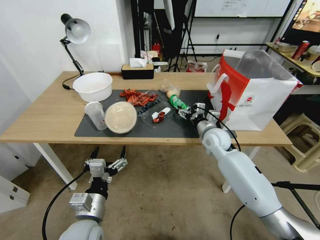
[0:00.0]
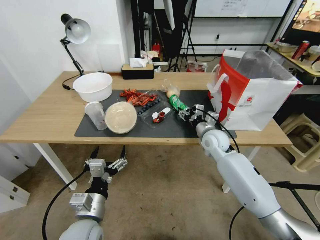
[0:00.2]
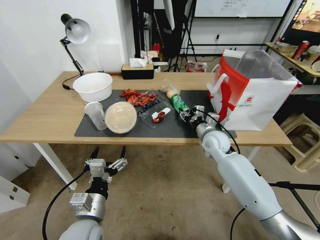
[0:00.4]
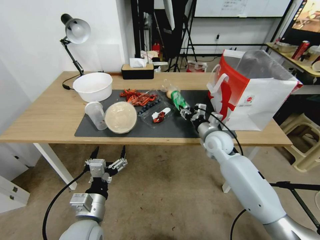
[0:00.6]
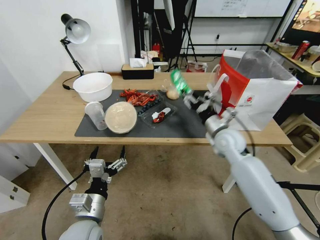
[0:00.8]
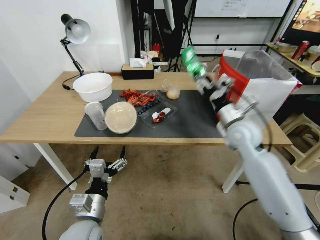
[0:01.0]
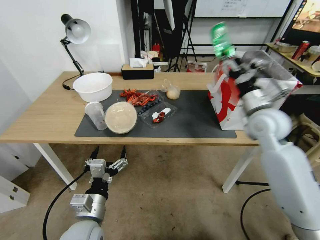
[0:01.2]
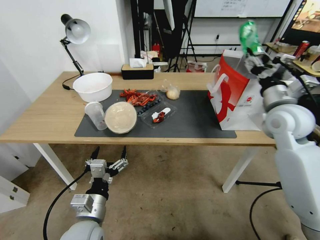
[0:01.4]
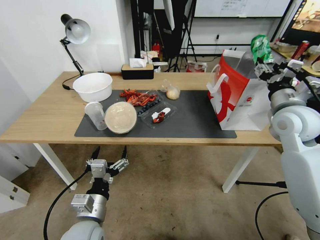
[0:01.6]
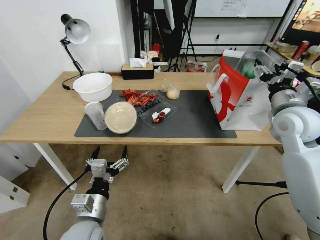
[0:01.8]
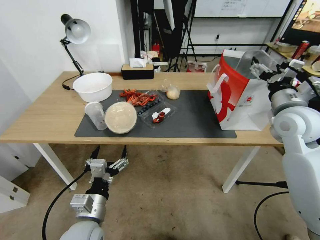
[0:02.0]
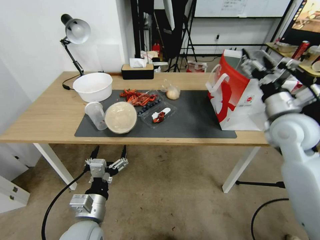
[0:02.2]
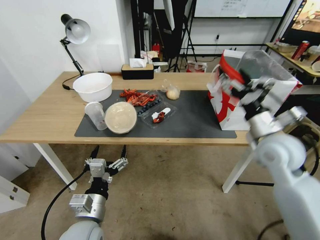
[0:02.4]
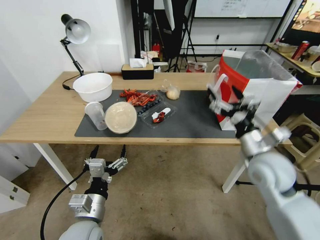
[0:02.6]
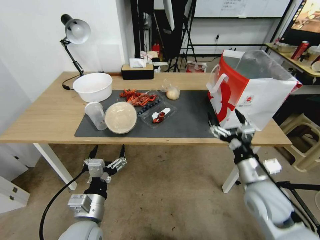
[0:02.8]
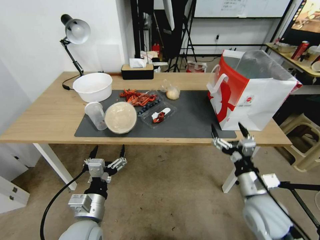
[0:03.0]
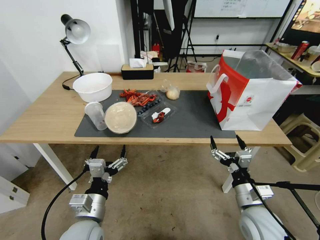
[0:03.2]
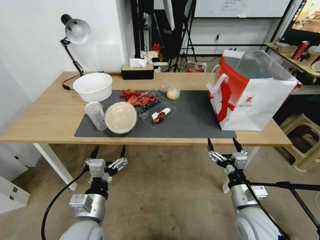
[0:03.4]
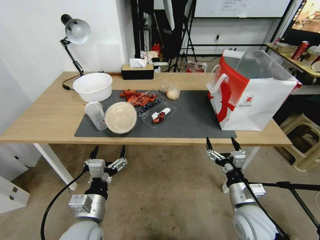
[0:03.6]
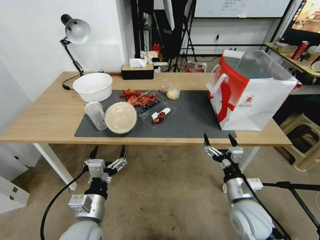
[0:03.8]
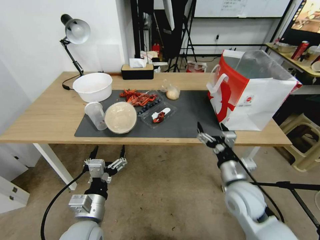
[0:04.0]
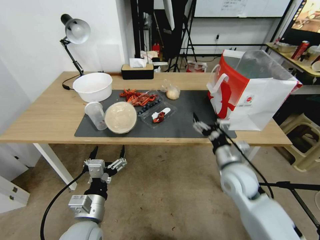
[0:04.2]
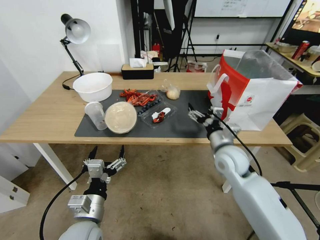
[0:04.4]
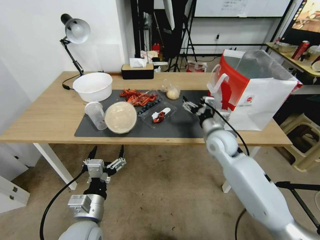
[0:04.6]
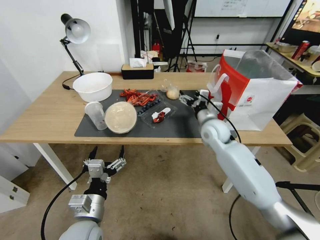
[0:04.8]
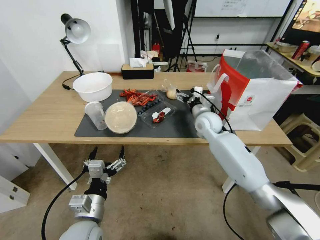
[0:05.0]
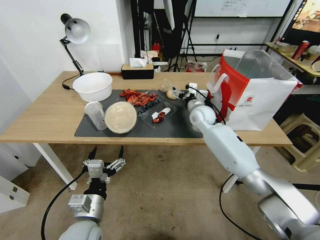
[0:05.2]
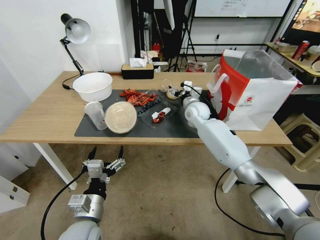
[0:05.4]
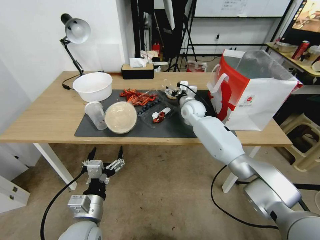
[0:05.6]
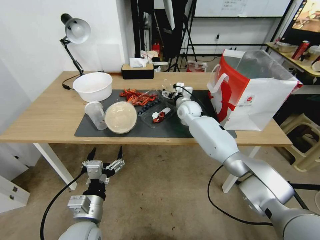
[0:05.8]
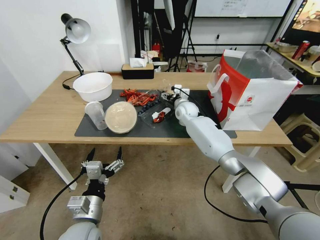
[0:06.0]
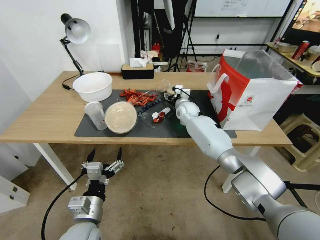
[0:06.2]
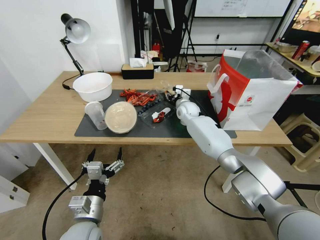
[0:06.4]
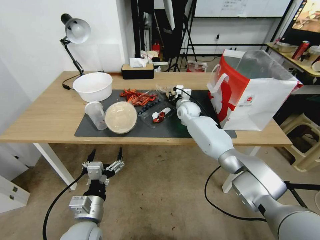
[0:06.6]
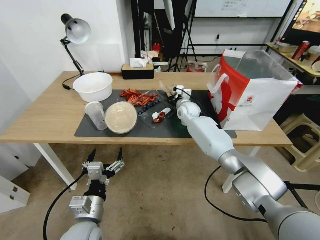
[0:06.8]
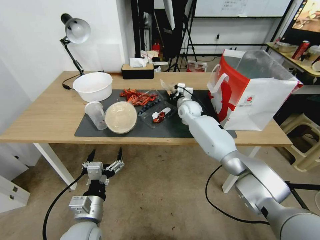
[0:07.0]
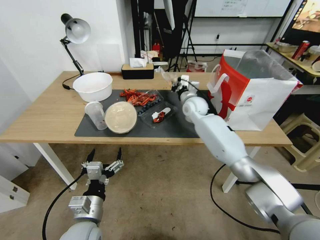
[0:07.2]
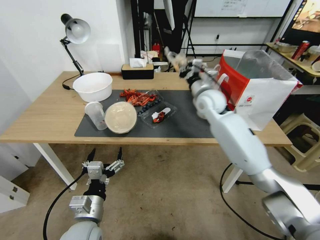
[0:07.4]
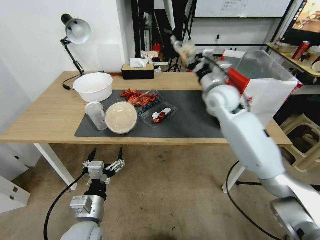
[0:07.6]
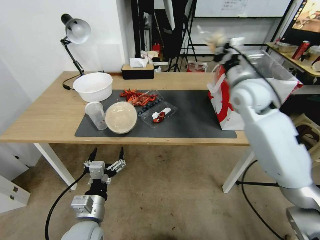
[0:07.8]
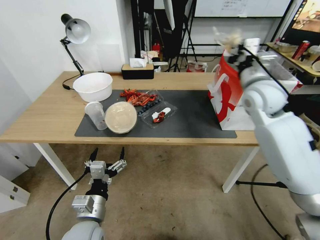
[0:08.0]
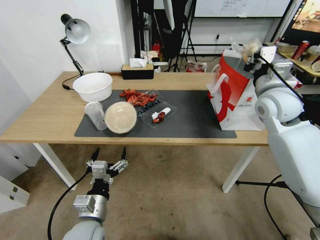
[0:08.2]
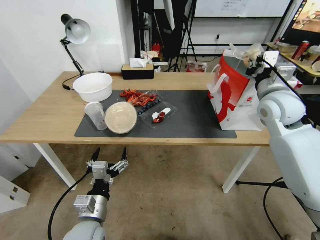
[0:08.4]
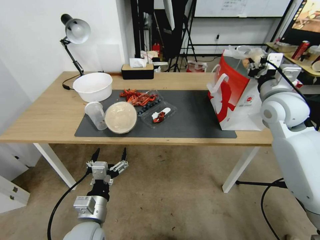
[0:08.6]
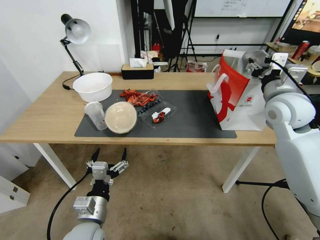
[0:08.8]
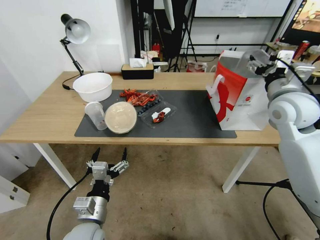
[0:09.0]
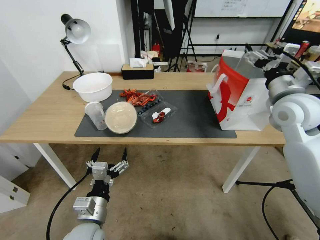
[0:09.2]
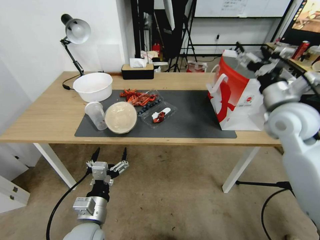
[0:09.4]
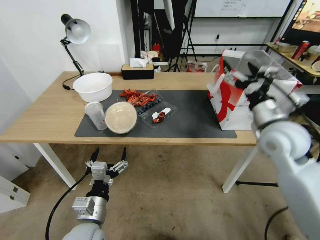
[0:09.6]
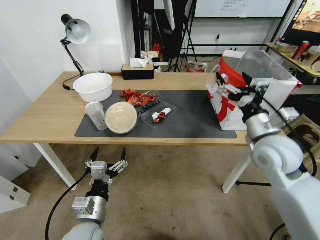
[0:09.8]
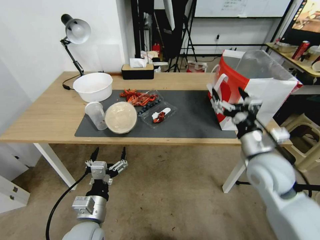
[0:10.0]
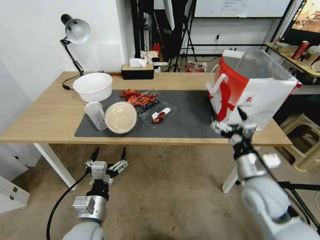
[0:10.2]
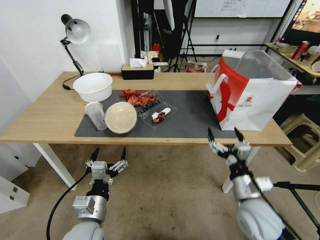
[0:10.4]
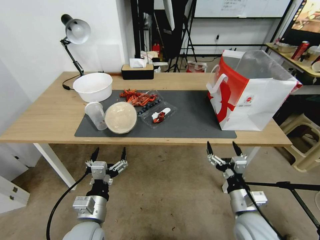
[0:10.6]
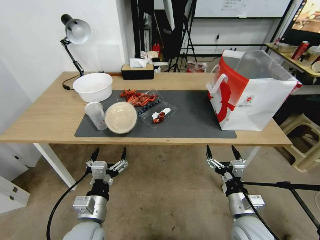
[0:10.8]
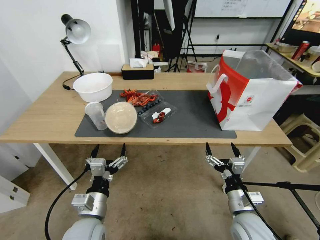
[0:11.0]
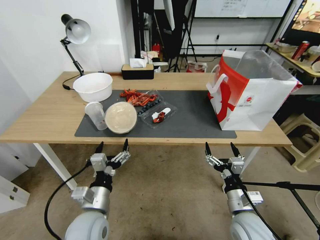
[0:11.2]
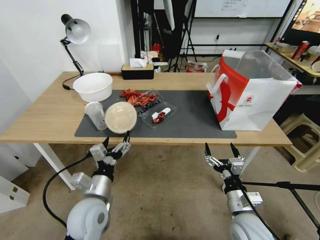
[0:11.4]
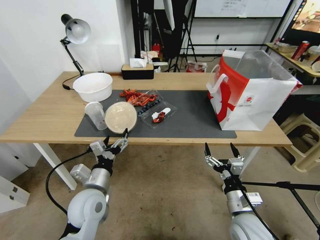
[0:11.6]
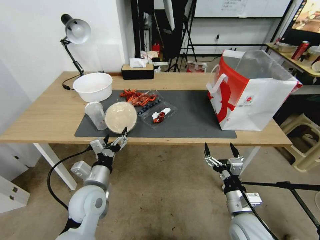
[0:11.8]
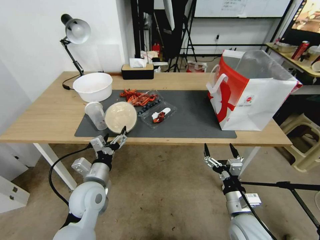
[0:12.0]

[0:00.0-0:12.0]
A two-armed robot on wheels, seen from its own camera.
0:00.0 to 0:01.6: The right gripper is displaced upward, to the right and backward by roughly 25 cm.
0:01.6 to 0:03.0: The right gripper goes about 25 cm downward and backward, and opens up.
0:03.0 to 0:04.4: The right gripper shifts approximately 15 cm forward.
0:04.4 to 0:06.0: The right gripper heads forward and to the left, covering some 25 cm.
0:06.0 to 0:07.6: The right gripper travels upward, backward and to the right by roughly 20 cm, and closes.
0:07.6 to 0:09.0: The right gripper is displaced to the right and backward by approximately 15 cm, and opens up.
0:09.0 to 0:10.4: The right gripper shifts approximately 30 cm downward and backward.
0:10.4 to 0:12.0: The left gripper is displaced forward by some 10 cm. Meanwhile the right gripper ends up about 5 cm from where it was.

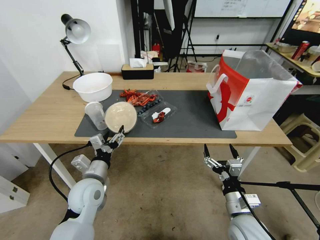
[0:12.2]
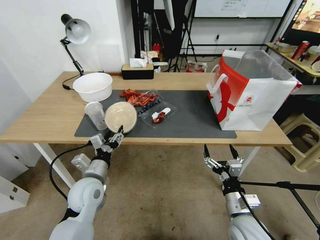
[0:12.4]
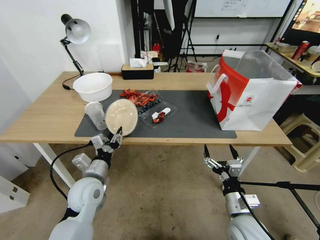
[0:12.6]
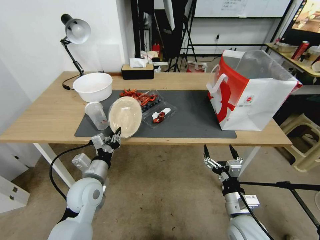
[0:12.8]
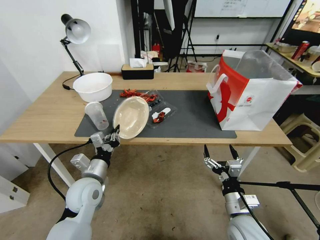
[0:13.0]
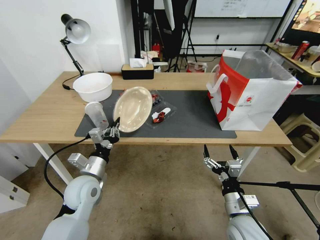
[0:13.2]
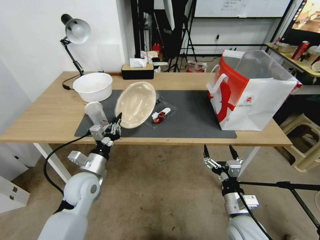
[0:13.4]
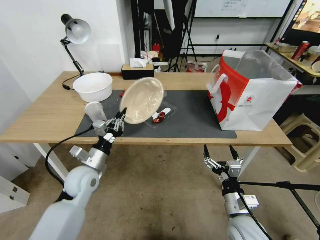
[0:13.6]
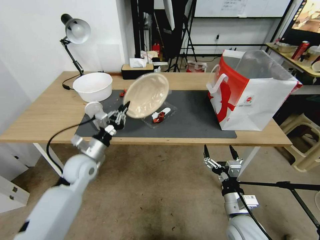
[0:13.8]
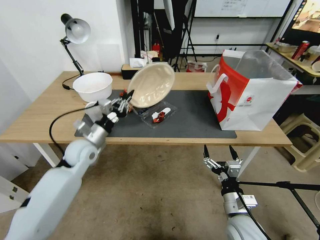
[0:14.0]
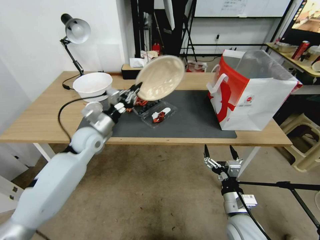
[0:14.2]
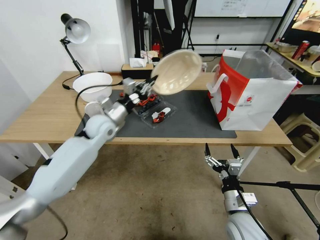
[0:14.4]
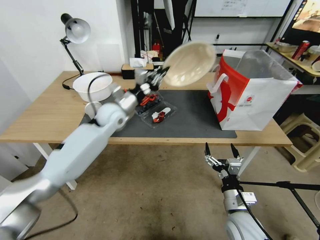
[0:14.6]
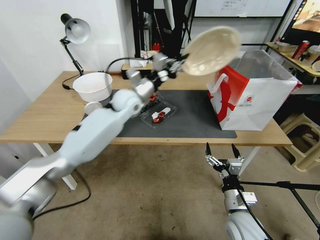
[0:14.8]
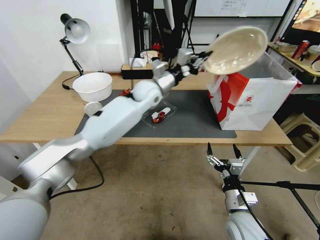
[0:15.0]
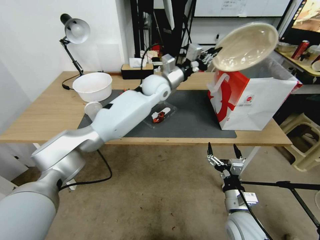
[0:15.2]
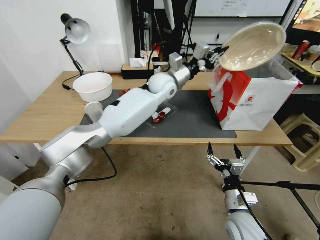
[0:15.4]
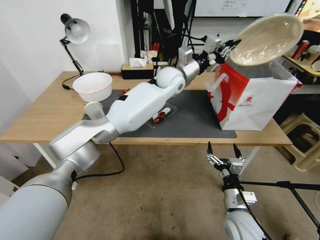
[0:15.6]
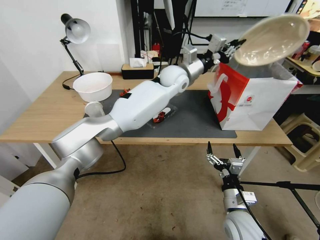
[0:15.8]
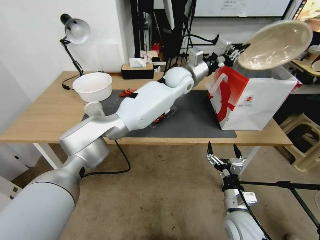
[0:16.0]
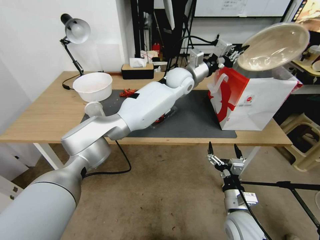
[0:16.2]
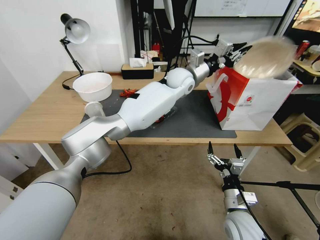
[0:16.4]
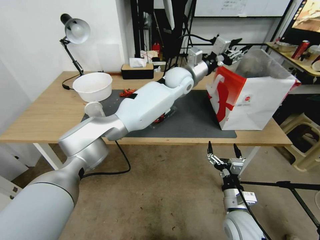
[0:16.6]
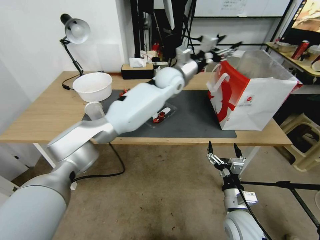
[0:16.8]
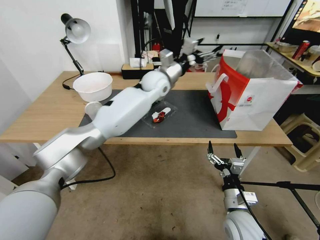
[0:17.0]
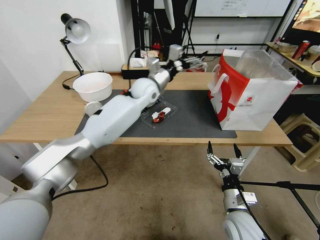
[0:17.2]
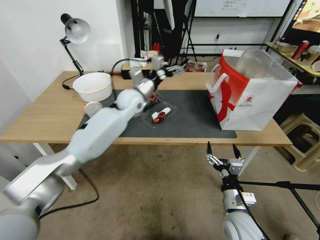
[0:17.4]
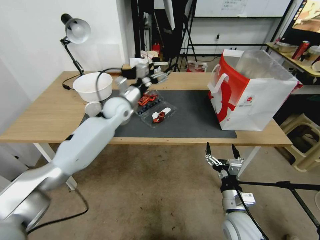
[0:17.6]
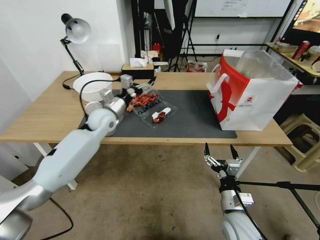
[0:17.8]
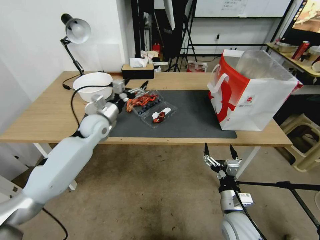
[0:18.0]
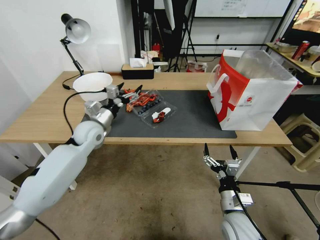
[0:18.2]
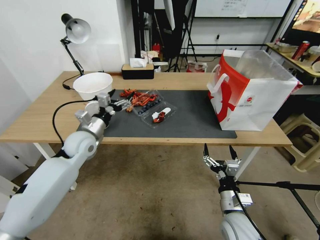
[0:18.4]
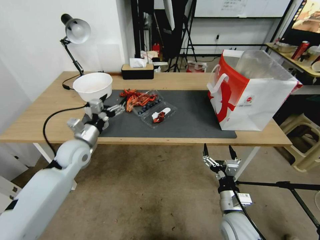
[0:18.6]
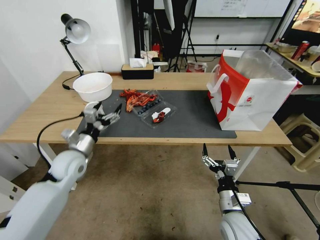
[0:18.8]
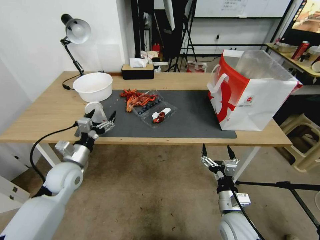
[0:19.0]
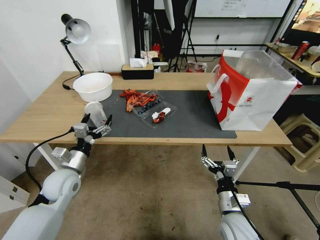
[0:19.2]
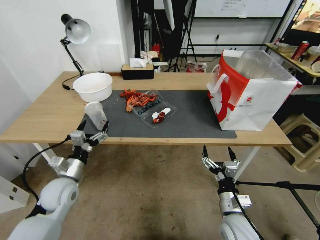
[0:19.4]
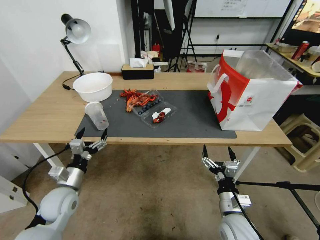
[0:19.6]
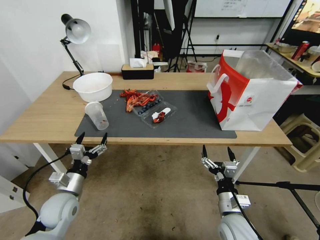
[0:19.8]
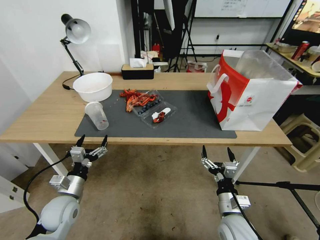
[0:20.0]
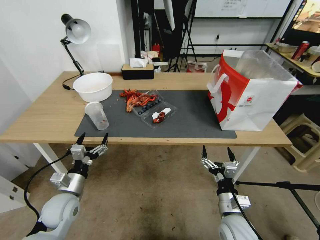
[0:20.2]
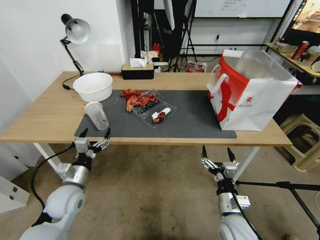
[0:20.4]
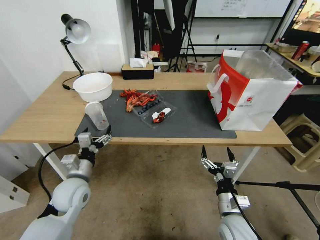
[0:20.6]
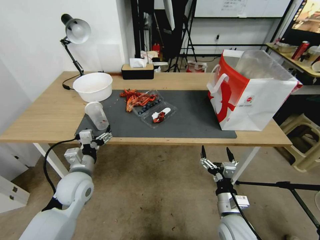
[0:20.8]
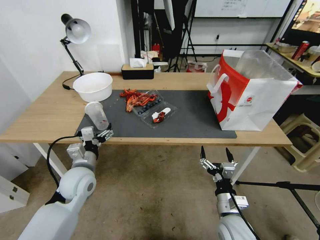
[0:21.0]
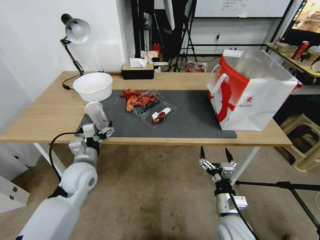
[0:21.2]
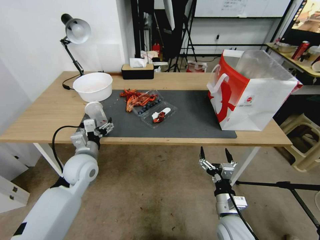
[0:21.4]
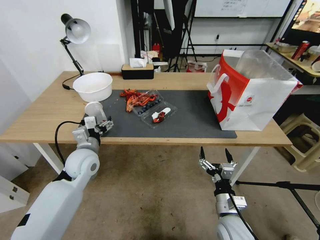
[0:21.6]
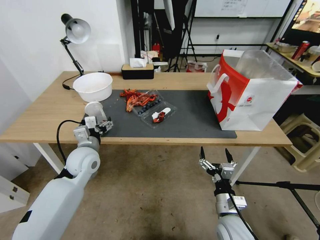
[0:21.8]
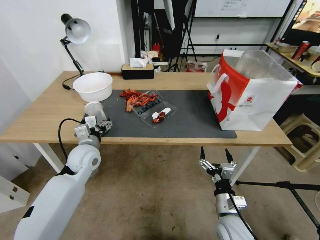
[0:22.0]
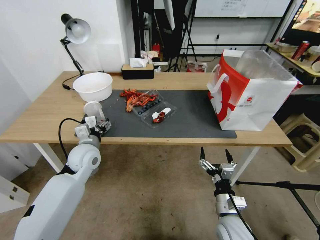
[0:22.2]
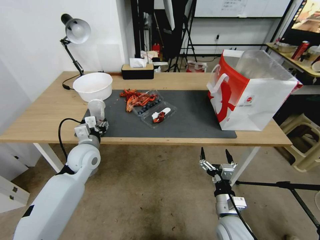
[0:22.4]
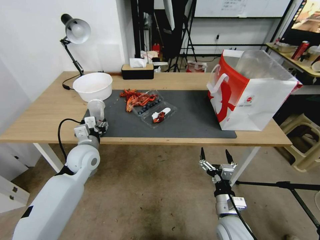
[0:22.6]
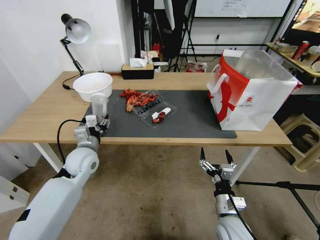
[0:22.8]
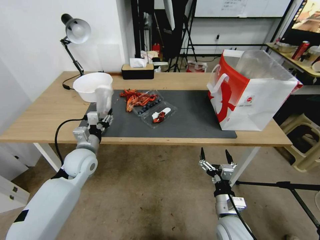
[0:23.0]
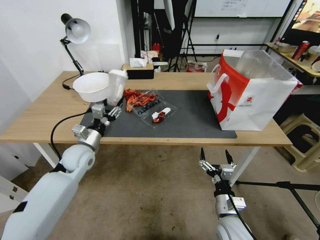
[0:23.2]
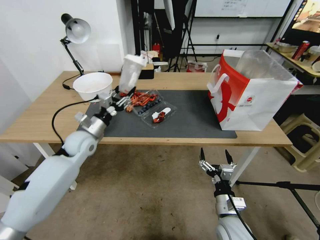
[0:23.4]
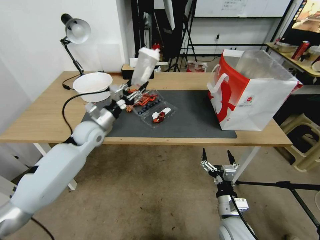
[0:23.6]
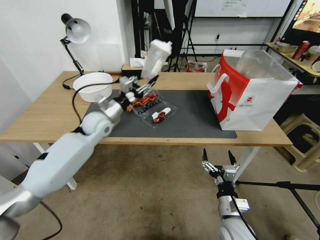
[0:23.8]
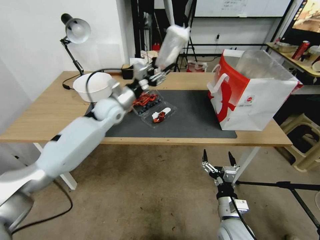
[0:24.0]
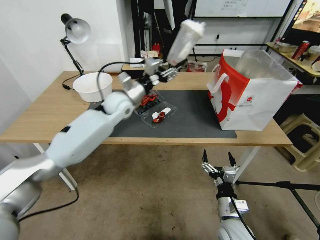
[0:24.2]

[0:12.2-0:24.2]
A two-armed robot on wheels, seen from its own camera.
0:12.2 to 0:13.8: The left gripper moves forward, roughly 10 cm, and closes.
0:13.8 to 0:15.2: The left gripper goes approximately 35 cm to the right, forward and upward.
0:15.2 to 0:16.6: The left gripper travels to the right by approximately 10 cm, and opens its fingers.
0:16.6 to 0:18.2: The left gripper moves to the left, downward and backward, approximately 40 cm, and opens its fingers.
0:18.2 to 0:19.8: The left gripper is displaced backward and downward by about 25 cm.
0:19.8 to 0:21.2: The left gripper heads upward, forward and to the right, covering approximately 10 cm.
0:21.2 to 0:22.6: The left gripper heads forward, covering approximately 5 cm, and closes its fingers.
0:22.6 to 0:24.2: The left gripper moves forward, upward and to the right, approximately 20 cm.
